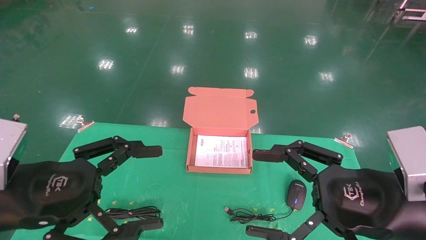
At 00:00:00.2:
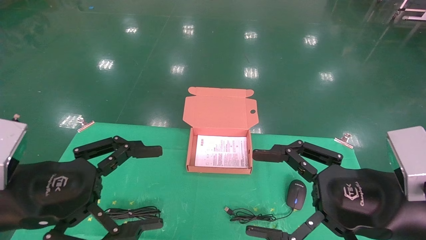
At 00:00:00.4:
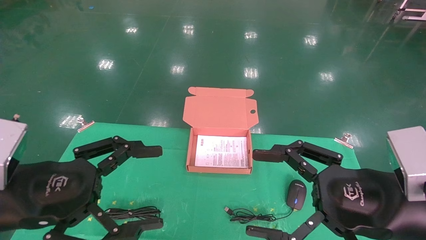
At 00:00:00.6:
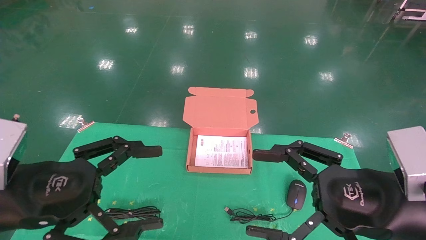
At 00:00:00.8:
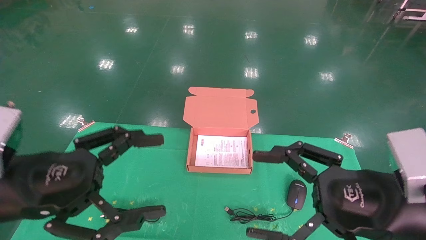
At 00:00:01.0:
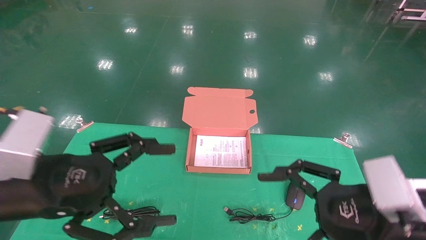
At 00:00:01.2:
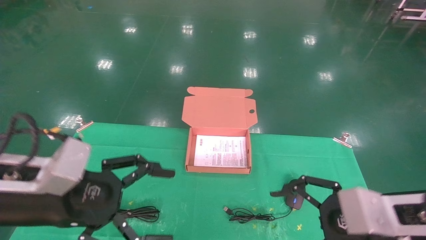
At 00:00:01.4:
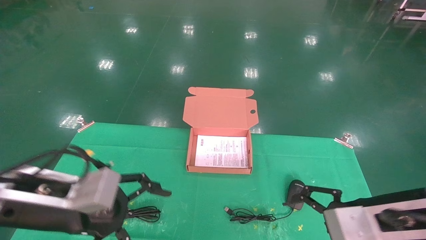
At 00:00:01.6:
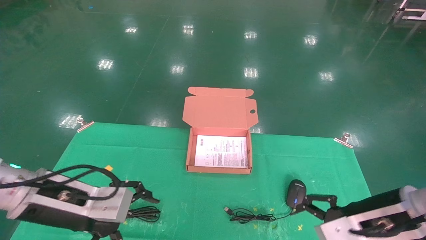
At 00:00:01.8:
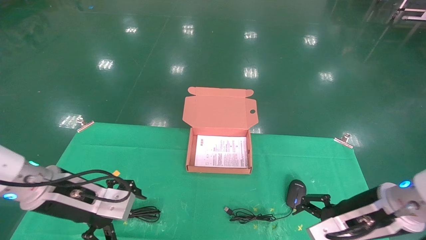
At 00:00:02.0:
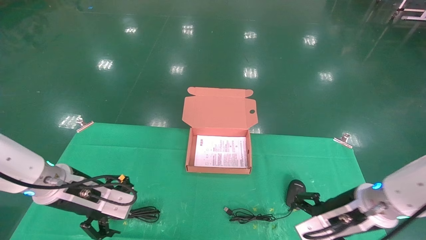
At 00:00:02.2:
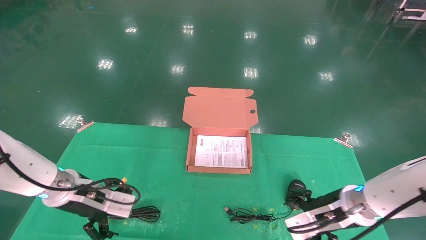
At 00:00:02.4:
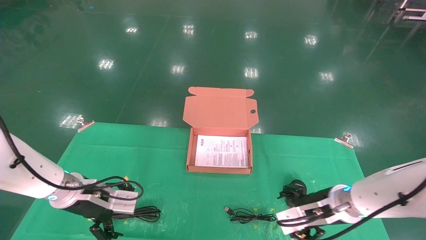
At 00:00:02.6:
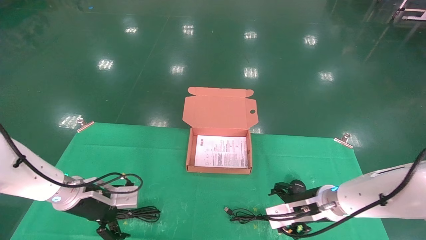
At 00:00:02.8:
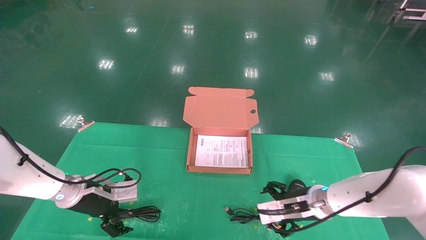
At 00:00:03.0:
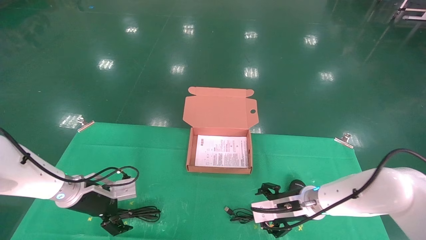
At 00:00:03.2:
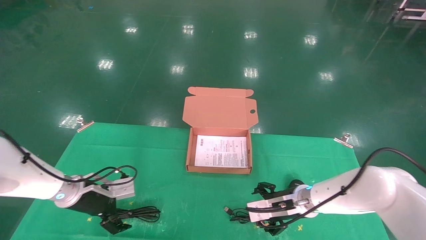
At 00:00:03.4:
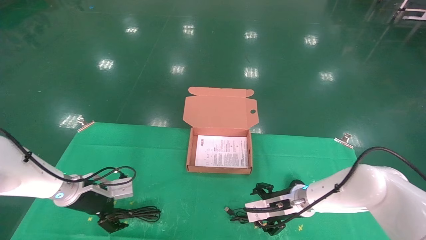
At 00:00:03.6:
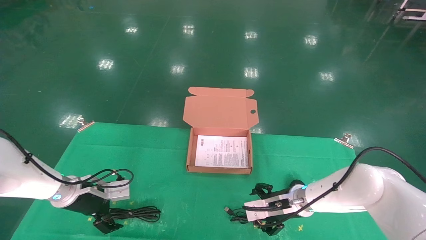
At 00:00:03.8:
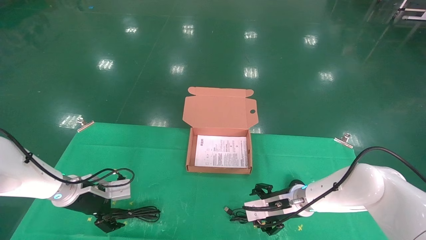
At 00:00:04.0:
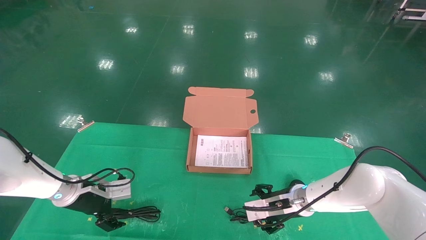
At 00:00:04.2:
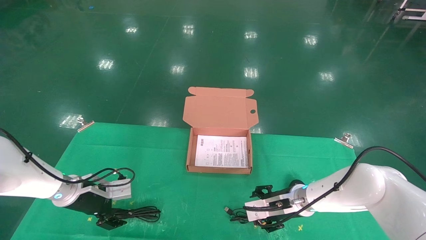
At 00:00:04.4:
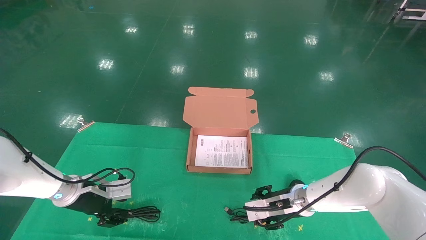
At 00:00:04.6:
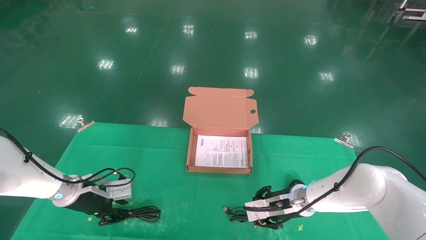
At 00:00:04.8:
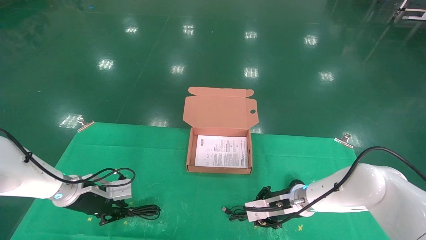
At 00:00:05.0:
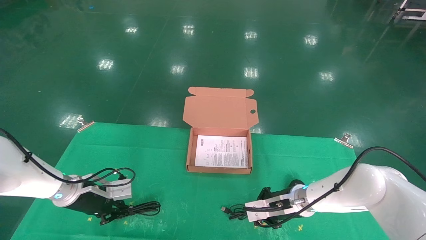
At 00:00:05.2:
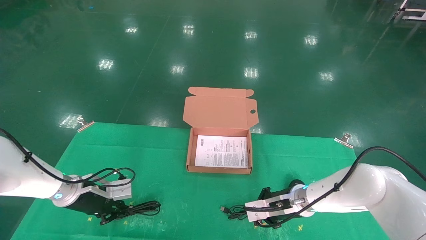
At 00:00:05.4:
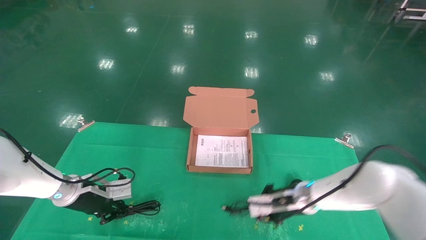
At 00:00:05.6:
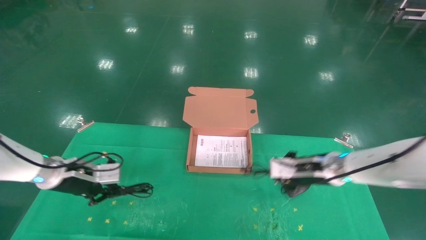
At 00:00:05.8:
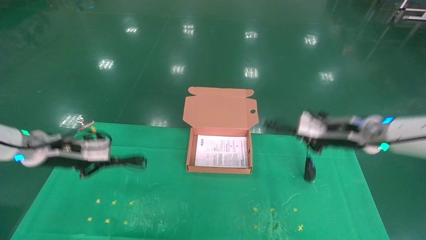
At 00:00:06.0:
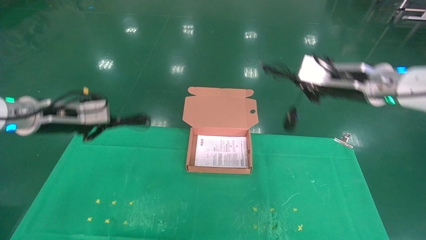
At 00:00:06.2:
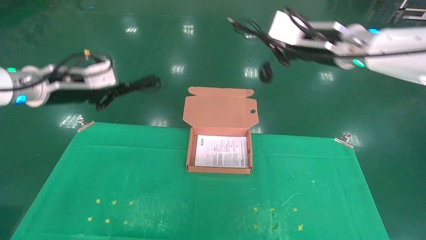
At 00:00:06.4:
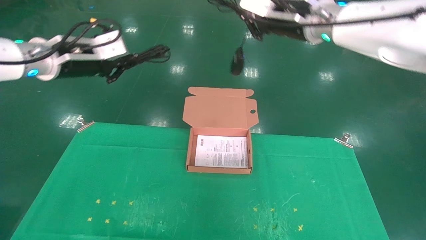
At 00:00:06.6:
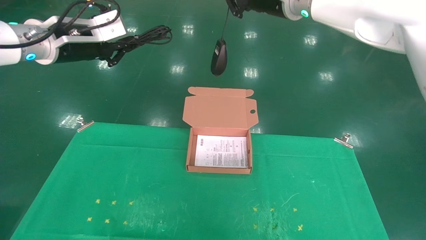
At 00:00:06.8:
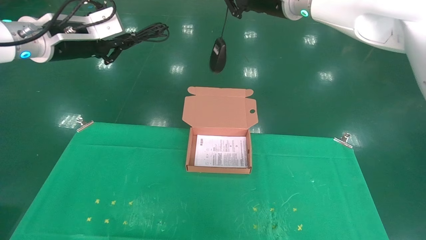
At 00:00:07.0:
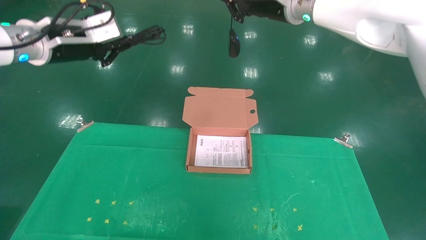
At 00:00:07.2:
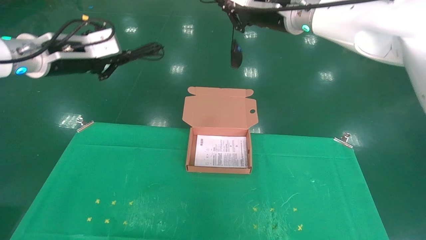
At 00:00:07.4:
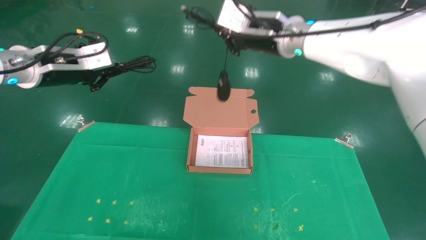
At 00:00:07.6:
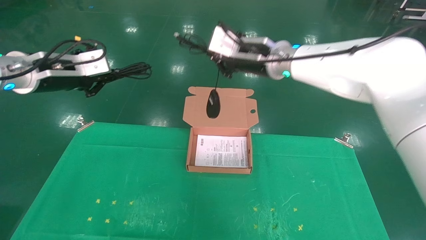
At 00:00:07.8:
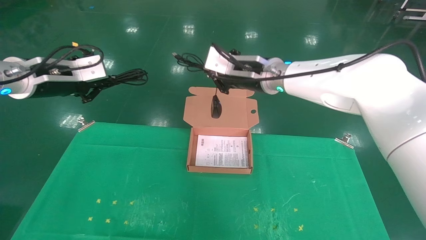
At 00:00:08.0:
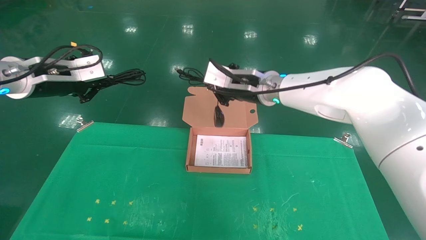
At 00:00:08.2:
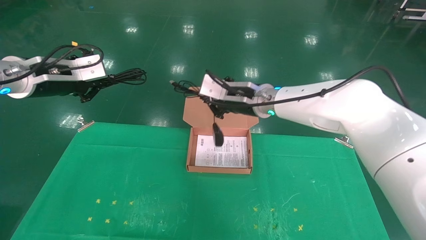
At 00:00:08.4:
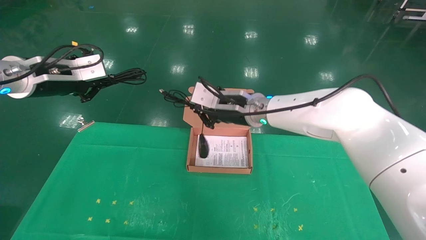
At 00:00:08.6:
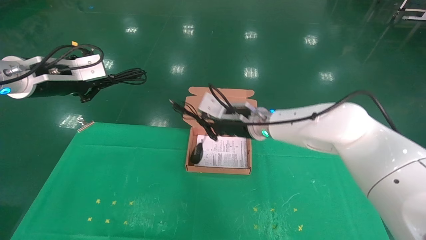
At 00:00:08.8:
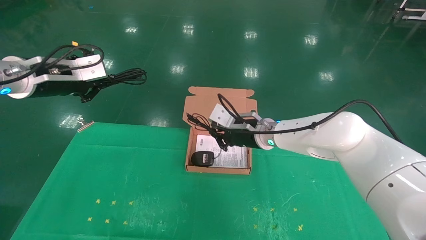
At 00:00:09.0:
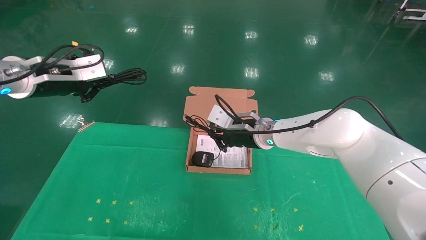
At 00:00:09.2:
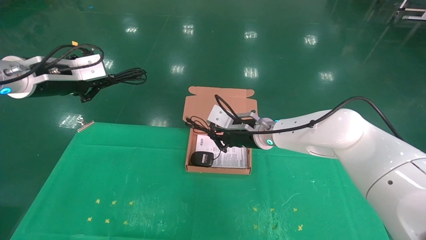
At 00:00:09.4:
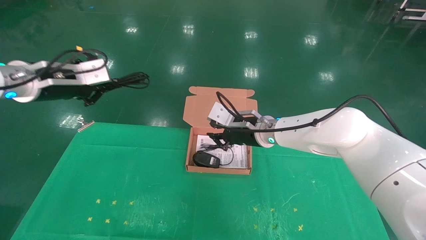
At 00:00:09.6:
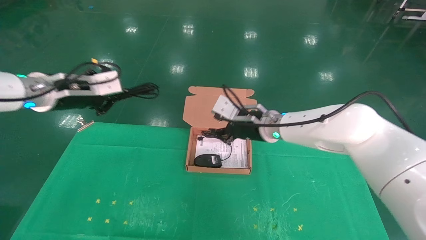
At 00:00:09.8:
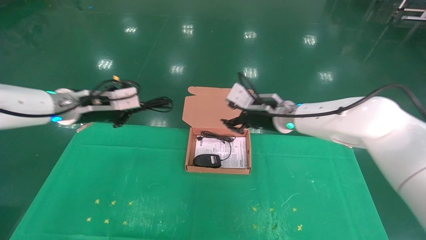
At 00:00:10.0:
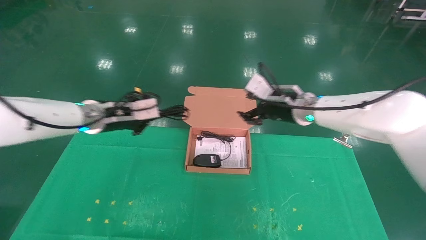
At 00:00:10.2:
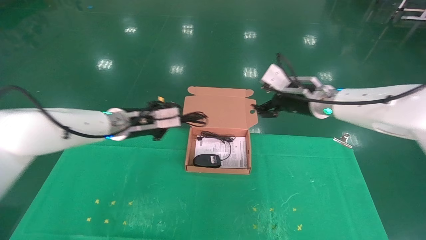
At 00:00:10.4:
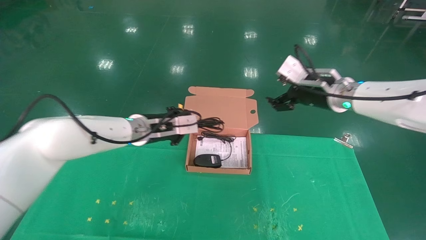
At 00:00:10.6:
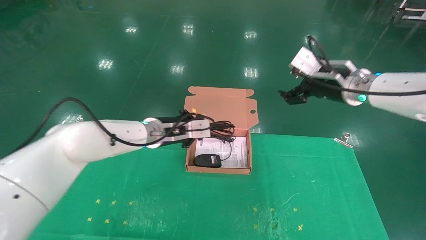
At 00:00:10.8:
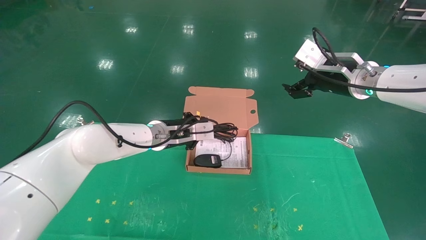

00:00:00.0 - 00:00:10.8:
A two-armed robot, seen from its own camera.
Task of the whole recording: grasp data cable left put into box grasp mouse right put into box.
Step, 00:00:00.8 - 00:00:05.2: Grab and pick up both the mouse and power cord from the accessory packaging area at the same time.
00:00:00.0 - 00:00:01.6: The right gripper goes approximately 10 cm forward and downward; the left gripper travels forward by approximately 5 cm.
00:00:01.6 - 00:00:03.0: The left gripper heads forward and downward, covering approximately 20 cm; the right gripper shifts some 20 cm forward, downward and to the left.
00:00:03.0 - 00:00:04.6: The left gripper closes. Meanwhile the right gripper closes up.
00:00:04.6 - 00:00:06.2: Both grippers move upward, roughly 30 cm. The right gripper closes its fingers. The left gripper closes up.
00:00:06.2 - 00:00:07.8: The left gripper reaches roughly 10 cm upward, then returns; the right gripper travels to the left and downward by roughly 15 cm.
00:00:07.8 - 00:00:09.2: The right gripper travels downward by about 15 cm.
00:00:09.2 - 00:00:10.8: The right gripper goes approximately 20 cm to the right and upward, and opens; the left gripper travels to the right, downward and forward by some 25 cm.

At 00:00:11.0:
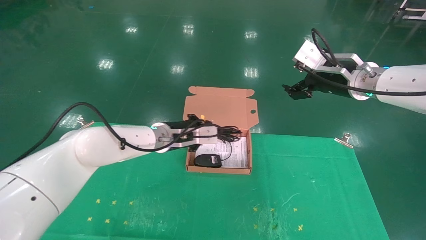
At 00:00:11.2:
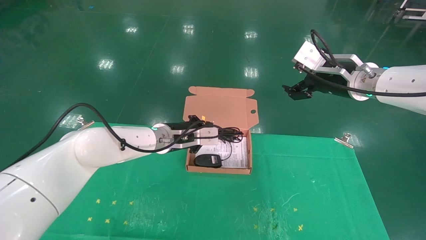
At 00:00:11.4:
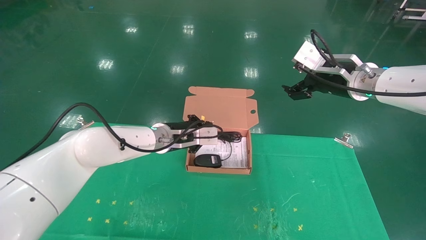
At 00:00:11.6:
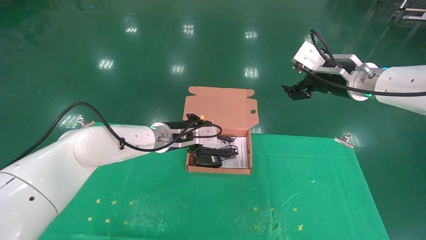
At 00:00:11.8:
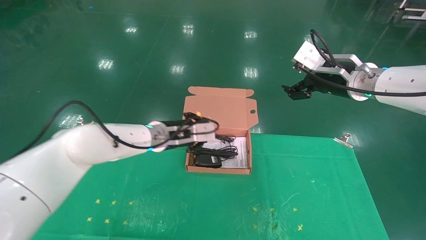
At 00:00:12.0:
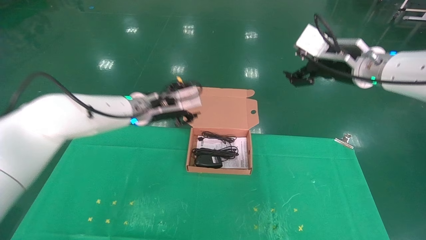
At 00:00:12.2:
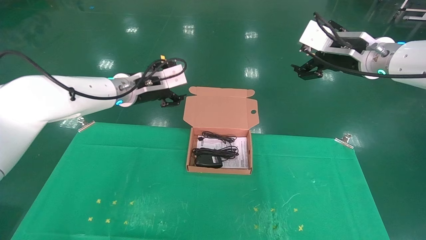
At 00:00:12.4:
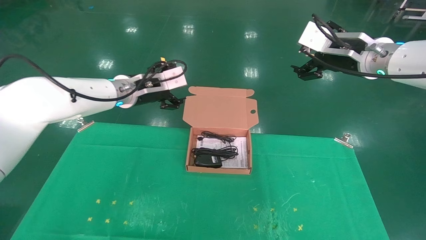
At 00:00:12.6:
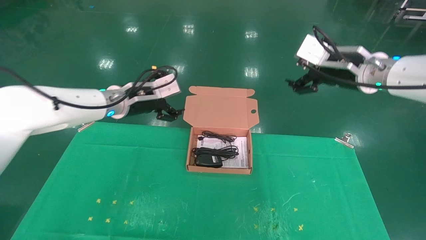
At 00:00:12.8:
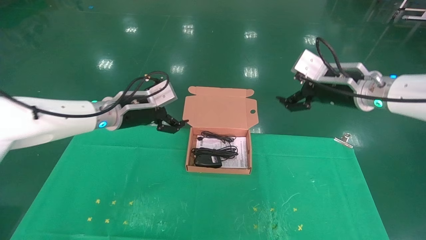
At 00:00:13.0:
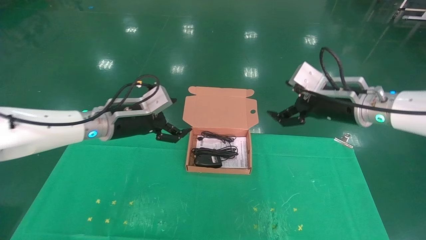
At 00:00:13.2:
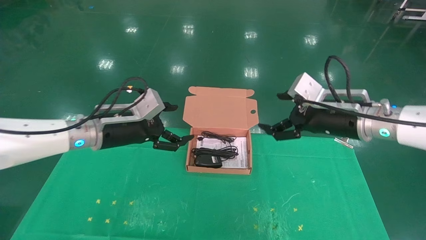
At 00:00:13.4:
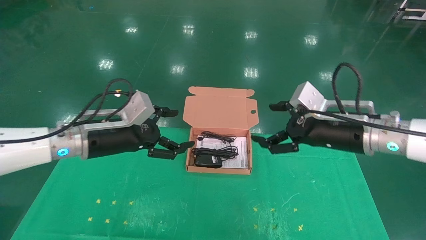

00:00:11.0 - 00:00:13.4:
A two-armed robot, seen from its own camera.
Task of the whole recording: grasp data cable left put into box grasp mouse right put into box.
00:00:11.0 - 00:00:12.2: The left gripper moves upward and to the left, approximately 10 cm, and opens.
00:00:12.2 - 00:00:13.4: The right gripper travels downward and backward by about 15 cm, while the left gripper goes approximately 15 cm backward, to the left and downward, and opens its fingers.
